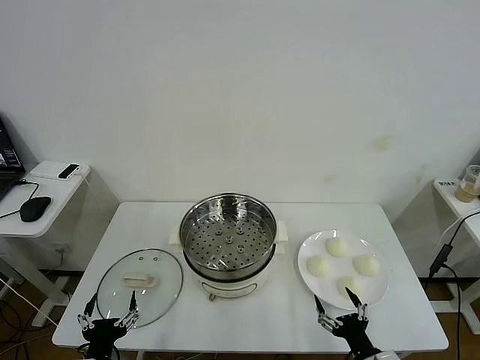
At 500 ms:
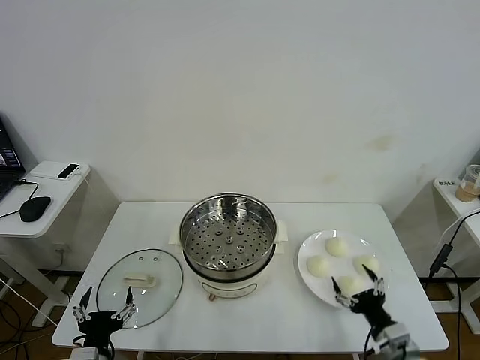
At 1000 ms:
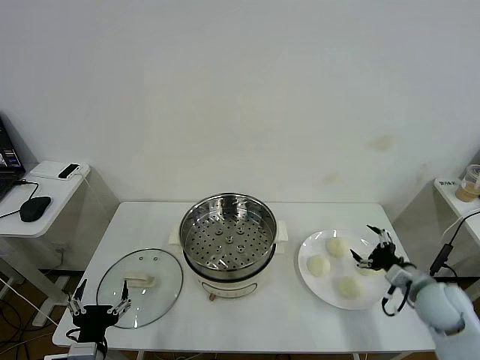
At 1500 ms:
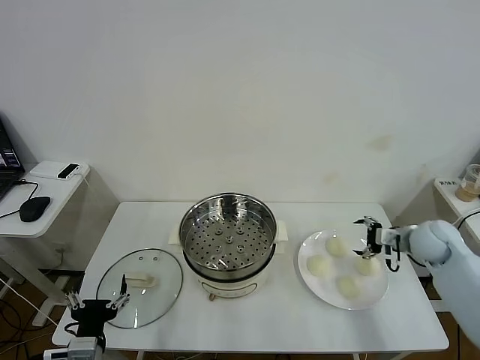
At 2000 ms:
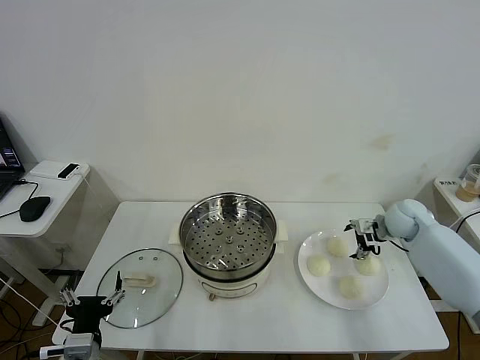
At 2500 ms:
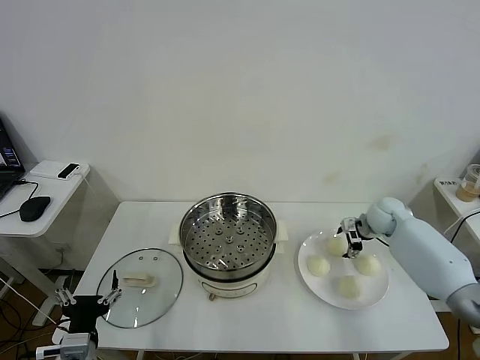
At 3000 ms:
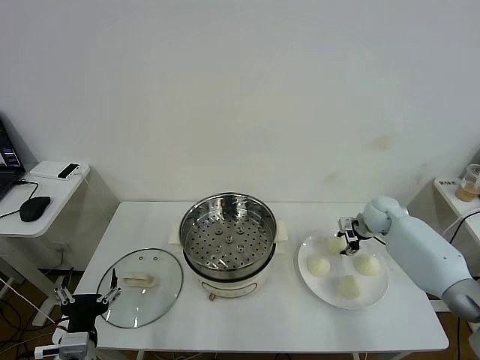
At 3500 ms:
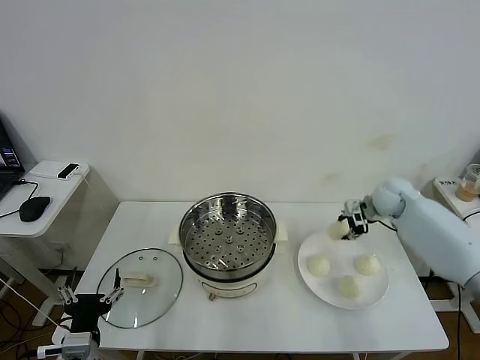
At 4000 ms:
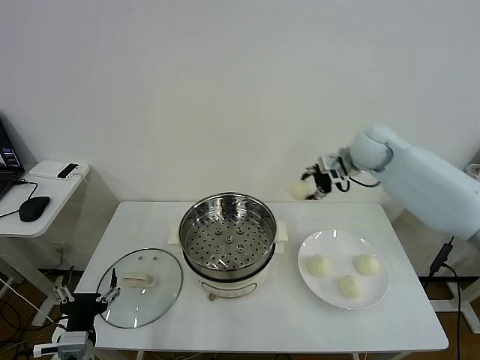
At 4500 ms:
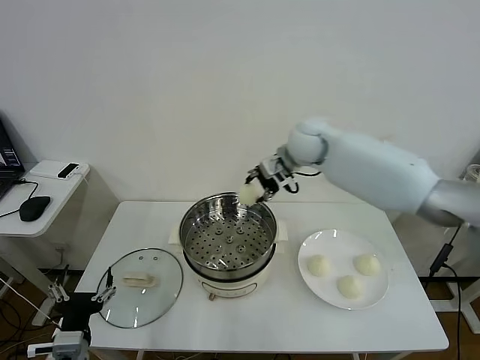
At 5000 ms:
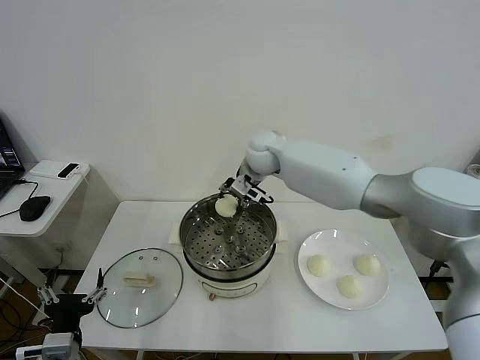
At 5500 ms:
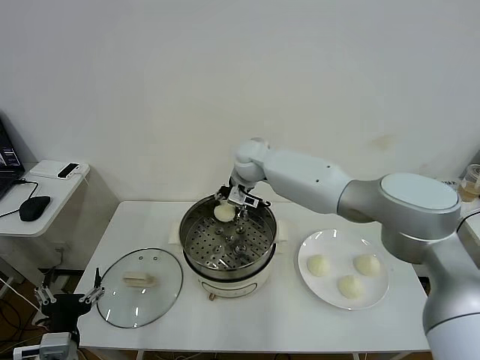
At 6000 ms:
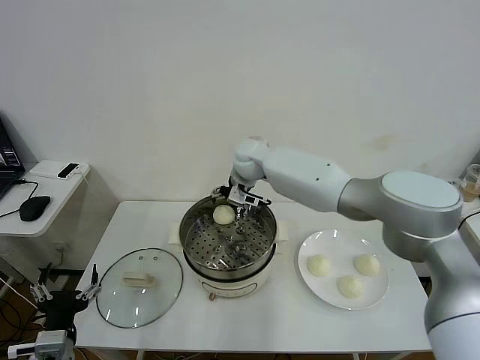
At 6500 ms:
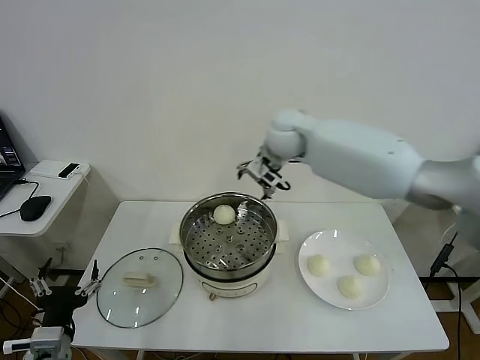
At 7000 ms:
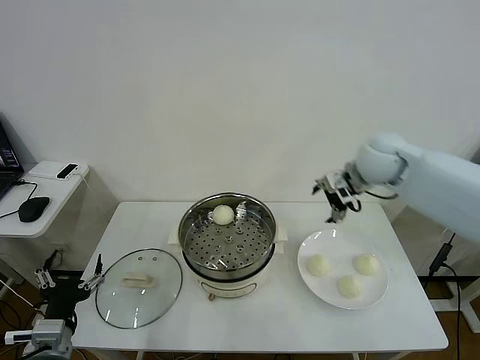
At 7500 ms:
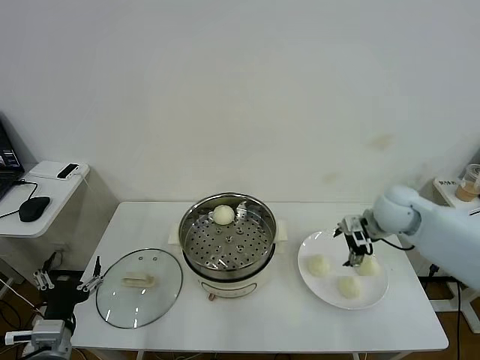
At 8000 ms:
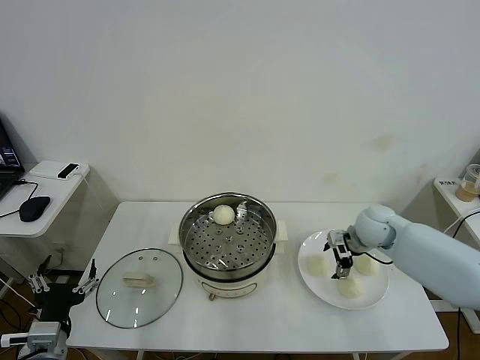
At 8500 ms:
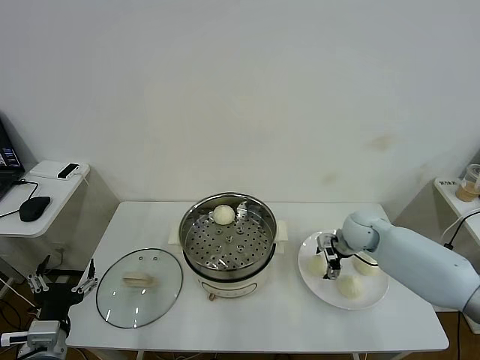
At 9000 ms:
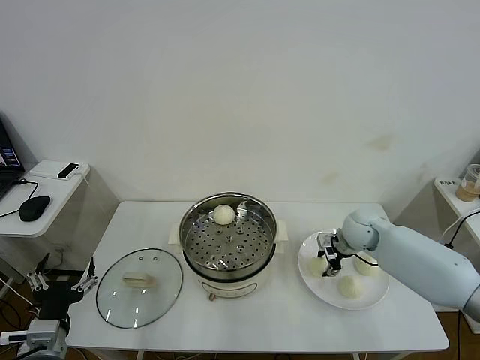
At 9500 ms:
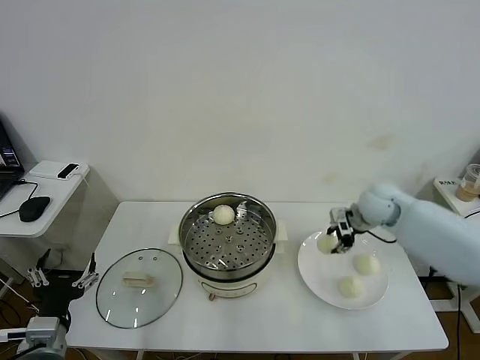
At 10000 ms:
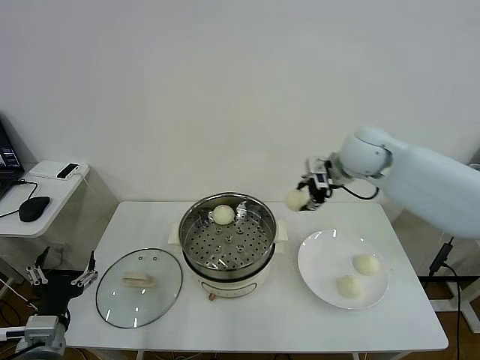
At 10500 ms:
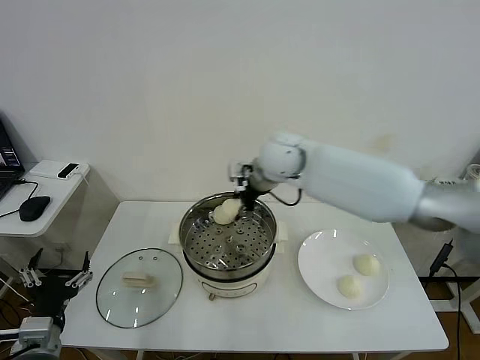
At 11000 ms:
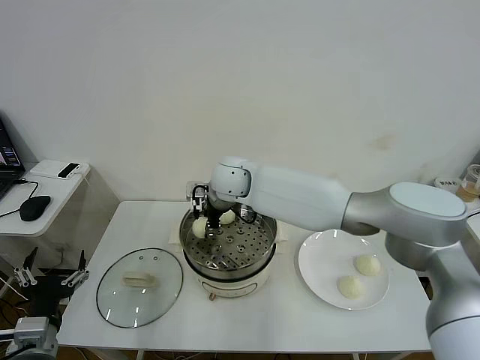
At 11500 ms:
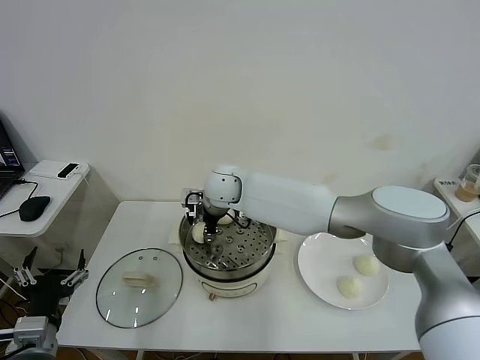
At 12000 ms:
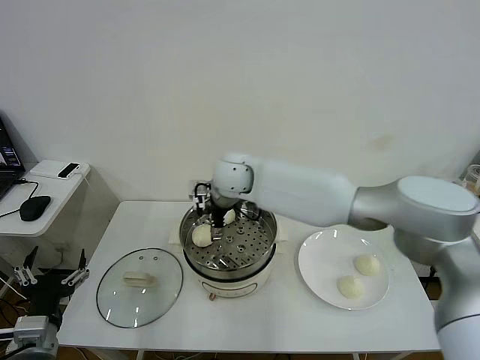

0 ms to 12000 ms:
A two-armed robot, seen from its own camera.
Task of the whole recording: take steamed baozi put them in steamer then cover it.
Step, 0 ms to 2500 ms: Grasp the baozi in the plate with right gripper.
Step, 3000 ms to 5500 ms: Place the baozi on the steamer with right gripper.
Step, 6000 ms to 8500 ms: Grasp the baozi in the plate with right gripper.
Step, 9500 ms to 11500 ms: Place the baozi on the steamer with right gripper.
2000 ms to 4000 ms: The right gripper moves upward and to the left, some 20 cm, and closes up.
4000 ms to 6000 ms: The right gripper travels to the left by some 25 cm, and opens.
6000 ms to 8000 ms: The right gripper shifts about 30 cm to the right and backward.
8000 ms to 10000 ms: The right gripper goes approximately 20 cm upward and to the left, and closes its fingers.
10000 ms to 12000 ms: The right gripper shifts some 25 cm to the left, and opens its fingers.

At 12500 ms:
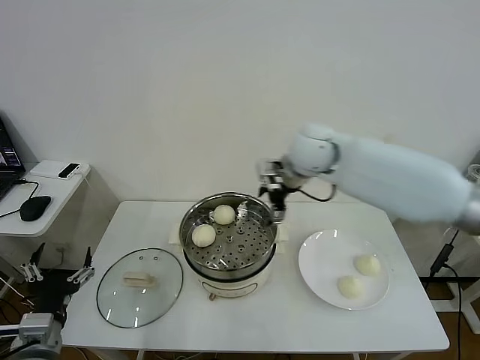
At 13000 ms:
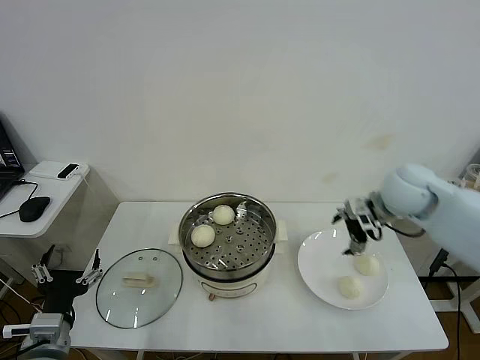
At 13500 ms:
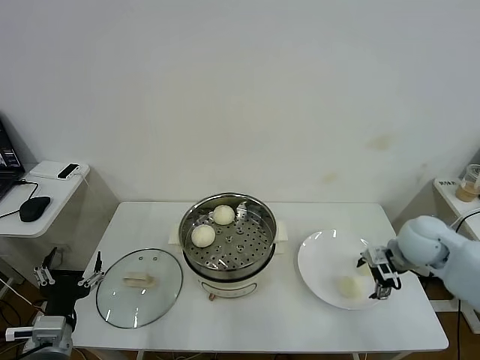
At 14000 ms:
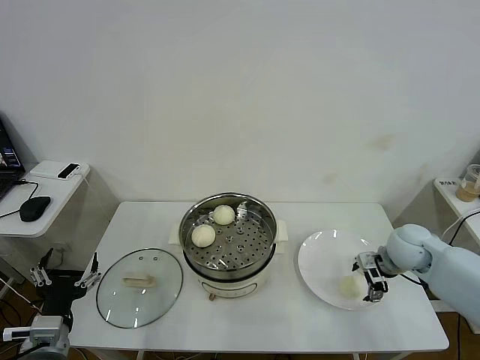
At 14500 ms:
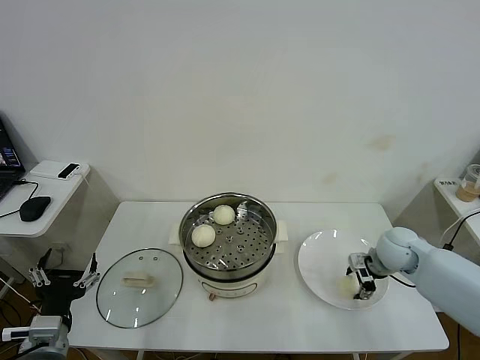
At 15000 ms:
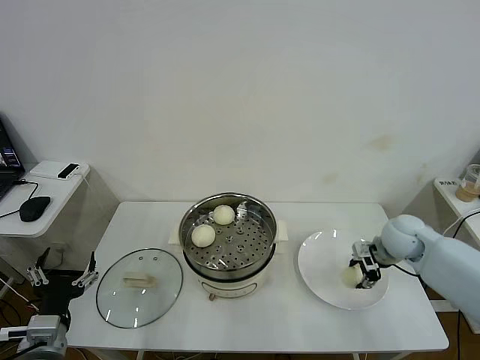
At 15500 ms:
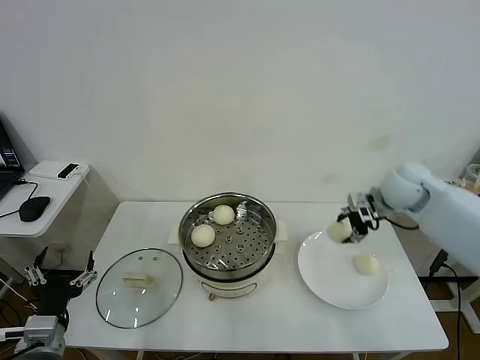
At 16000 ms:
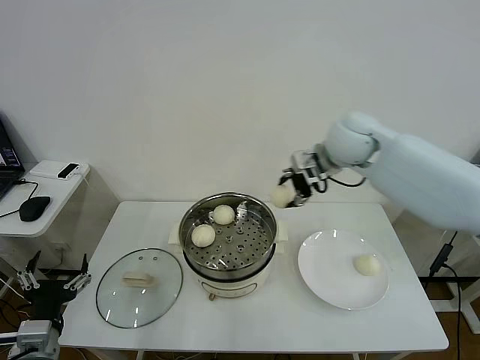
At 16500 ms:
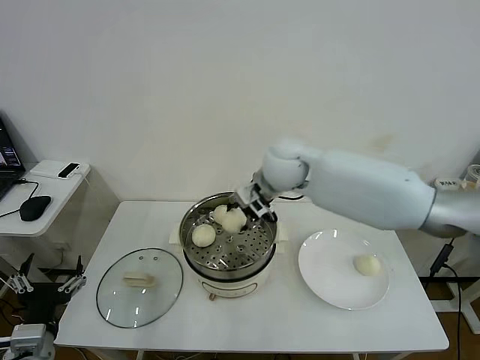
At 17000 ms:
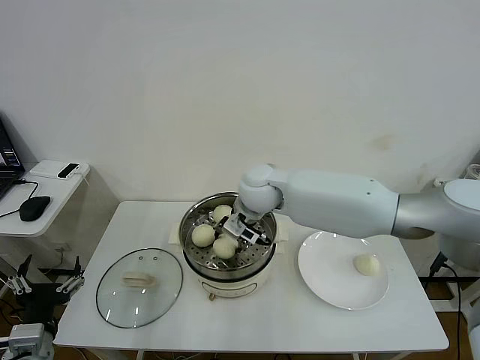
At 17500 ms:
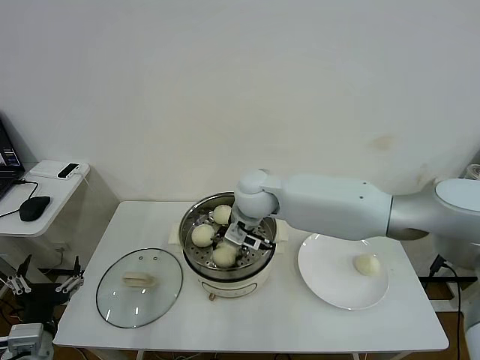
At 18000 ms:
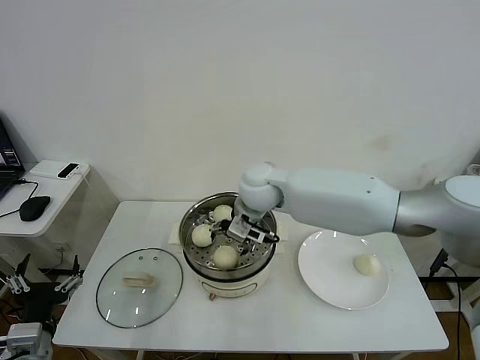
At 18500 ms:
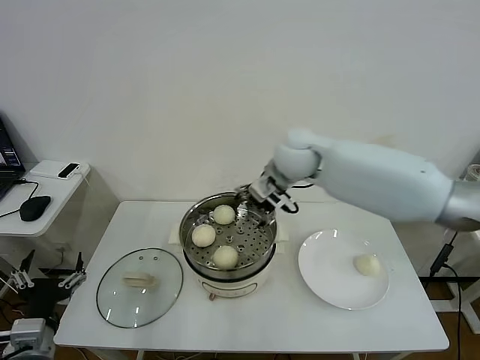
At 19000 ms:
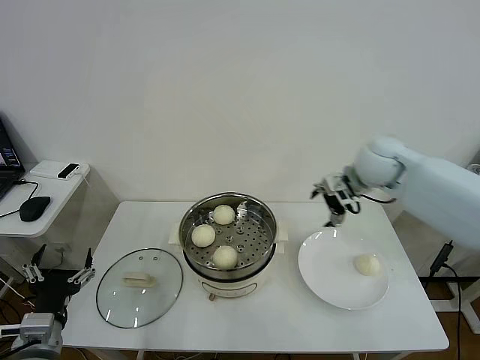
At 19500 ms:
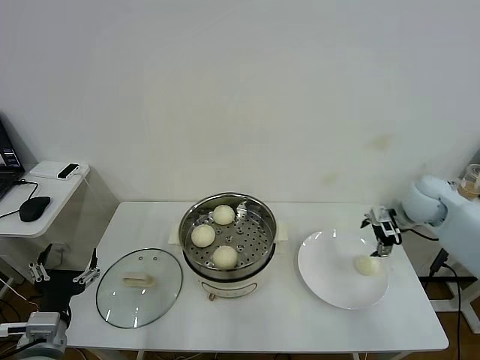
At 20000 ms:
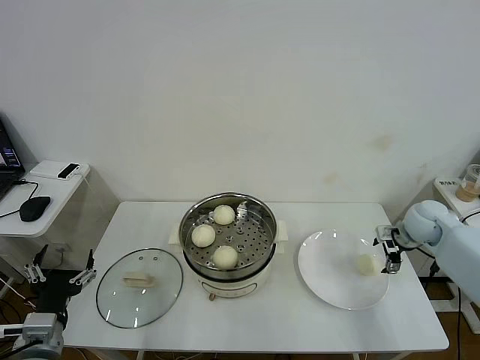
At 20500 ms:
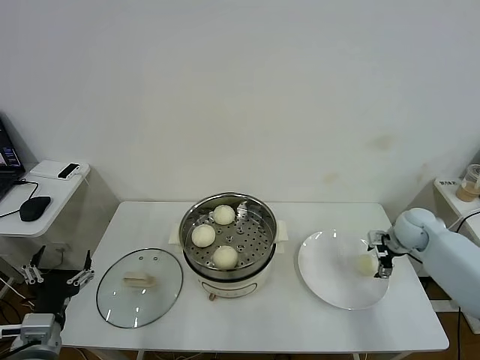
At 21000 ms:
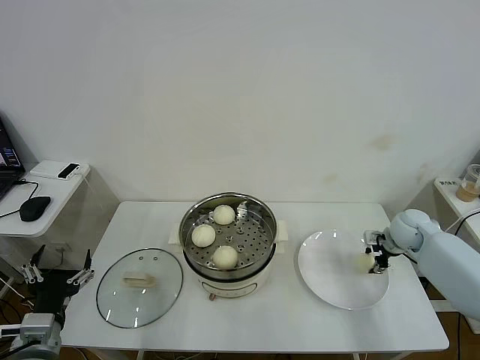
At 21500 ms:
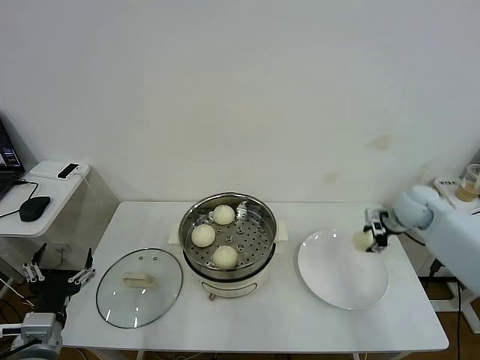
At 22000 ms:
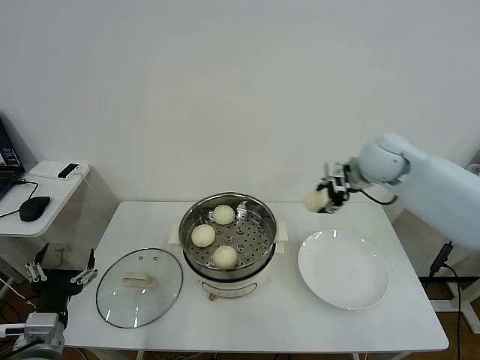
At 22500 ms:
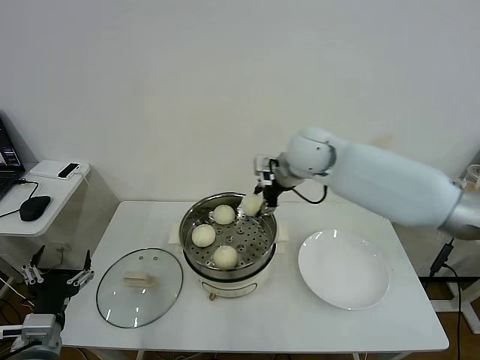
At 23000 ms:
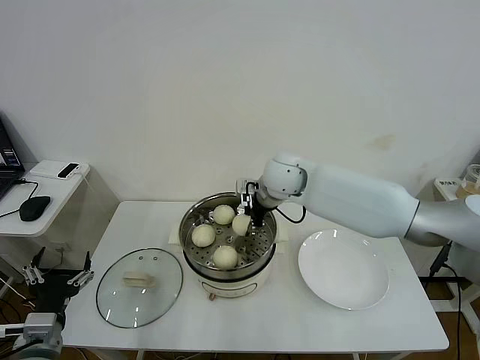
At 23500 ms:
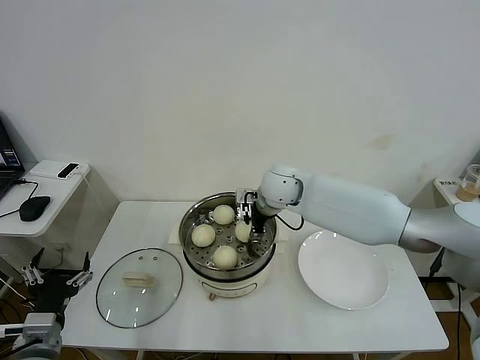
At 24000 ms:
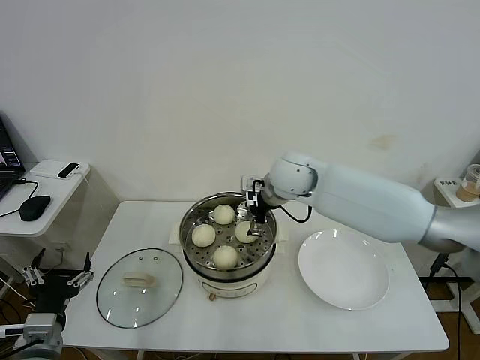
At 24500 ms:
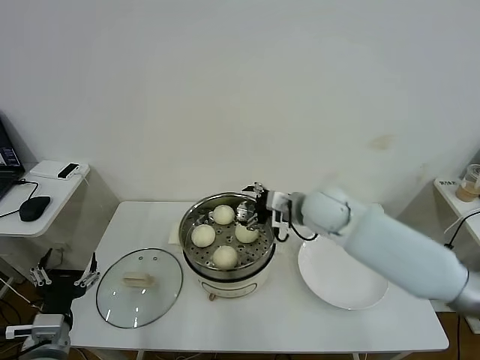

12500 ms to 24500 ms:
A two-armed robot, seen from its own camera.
Task of the whole recording: take steamed baozi put them in steamer then cover it.
Step, 12500 ms to 14500 ms: Grasp the baozi in the plate with right gripper.
Step, 15000 ms to 18000 ms: Place the baozi on the steamer with right gripper.
Step, 18500 ms to 21000 ms: Grasp the baozi in the plate with right gripper.
Step, 21500 ms to 23500 ms: Place the baozi on the steamer with right gripper.
12500 ms to 14500 ms: The right gripper shifts some 30 cm to the right and downward, and closes up.
14500 ms to 16500 ms: The right gripper goes about 35 cm to the left and upward.
16500 ms to 18500 ms: The right gripper reaches some 5 cm downward, then returns, and opens its fingers.
18500 ms to 20500 ms: The right gripper is displaced to the right and downward by about 40 cm.
20500 ms to 22500 ms: The right gripper heads to the left and upward, covering approximately 35 cm, and closes up.
22500 ms to 24500 ms: The right gripper shifts approximately 10 cm downward and backward, and opens.

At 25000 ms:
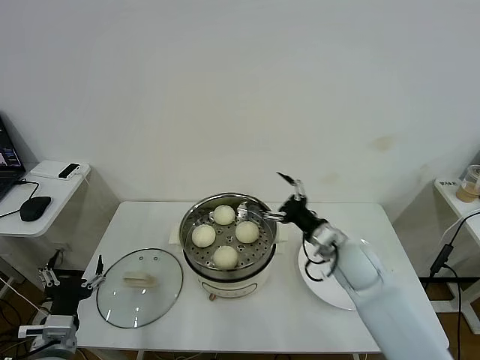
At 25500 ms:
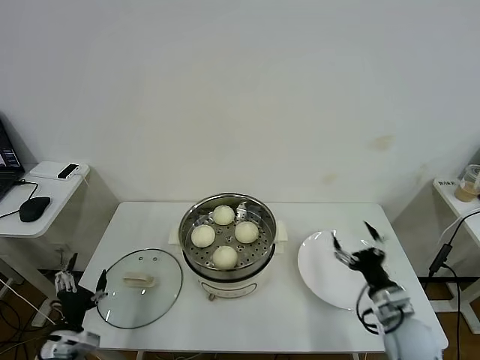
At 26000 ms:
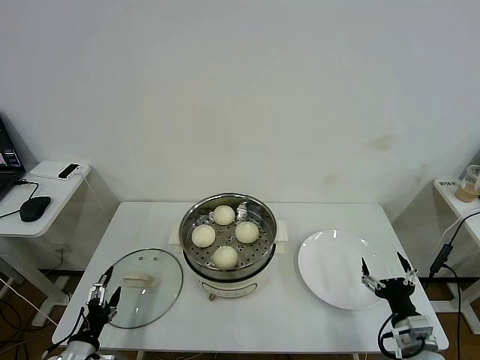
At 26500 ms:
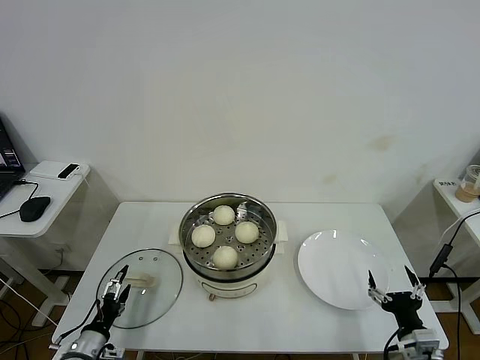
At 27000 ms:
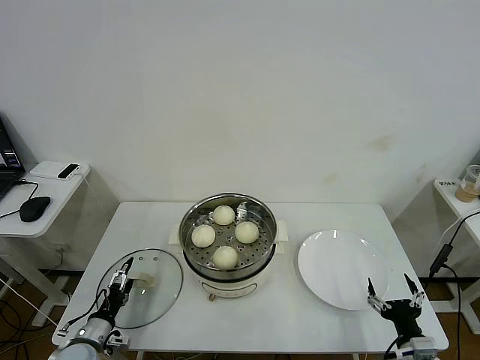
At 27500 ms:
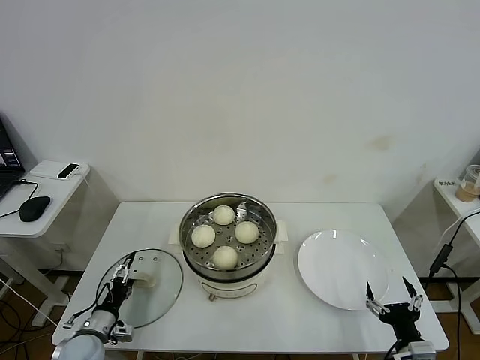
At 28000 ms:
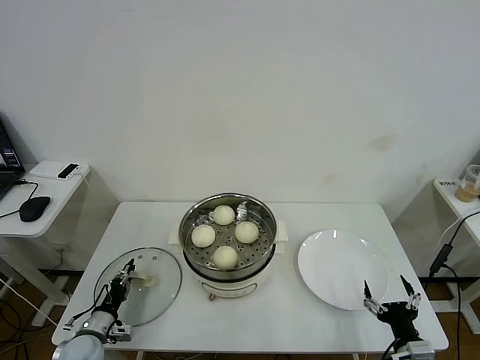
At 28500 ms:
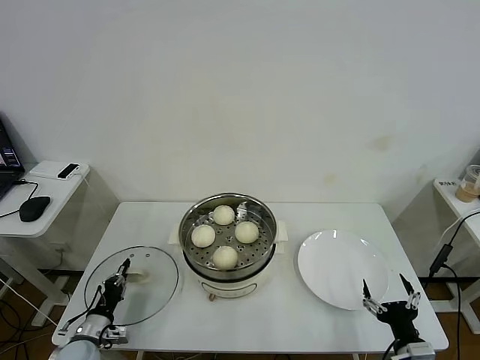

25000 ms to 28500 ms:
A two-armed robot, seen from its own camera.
Task of the whole recording: take steamed baozi put them in steamer then cover it.
Step, 25000 ms to 28500 ms: Grasp the pot lid with left gripper.
25000 ms to 27000 ms: The left gripper is displaced downward by some 15 cm. Meanwhile the right gripper travels backward, to the right and downward by roughly 30 cm.
27000 ms to 28500 ms: The left gripper closes up.
